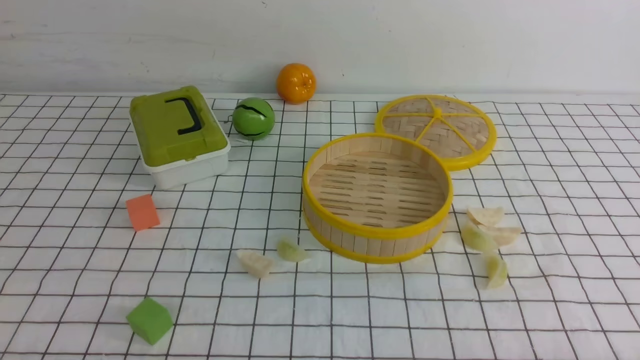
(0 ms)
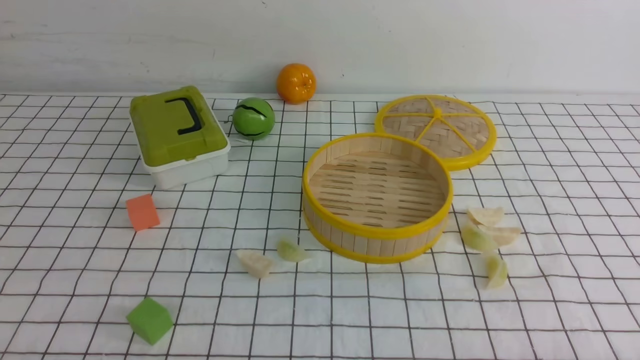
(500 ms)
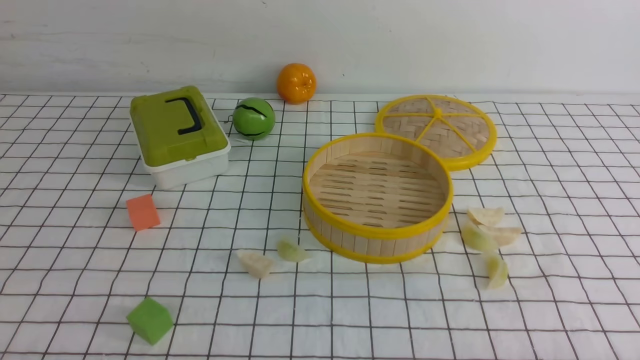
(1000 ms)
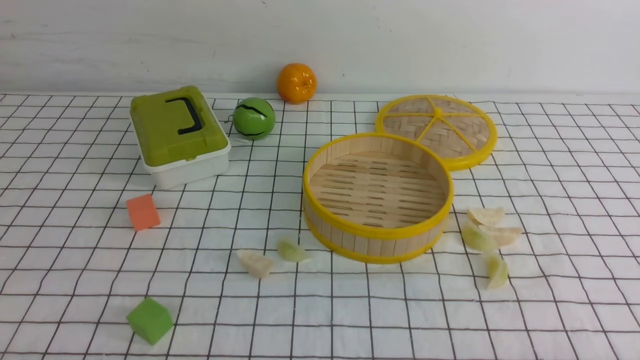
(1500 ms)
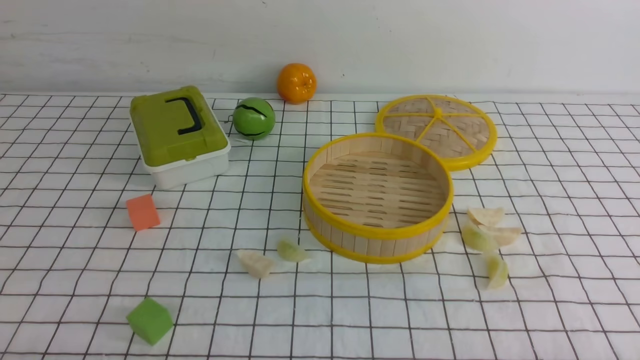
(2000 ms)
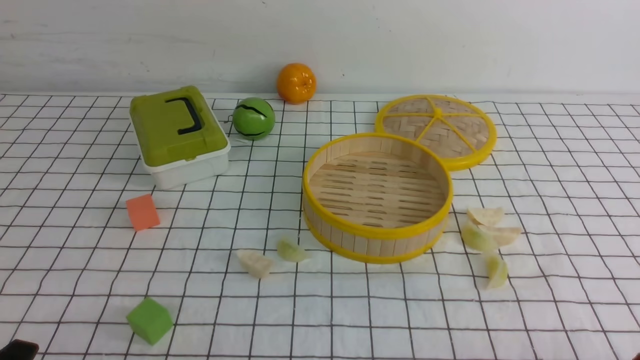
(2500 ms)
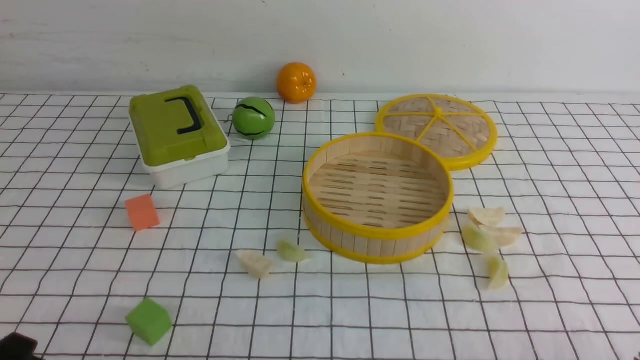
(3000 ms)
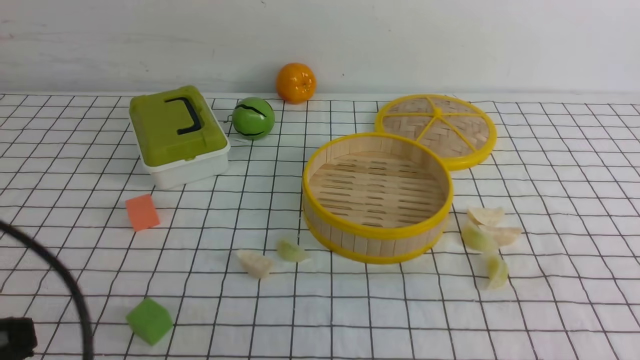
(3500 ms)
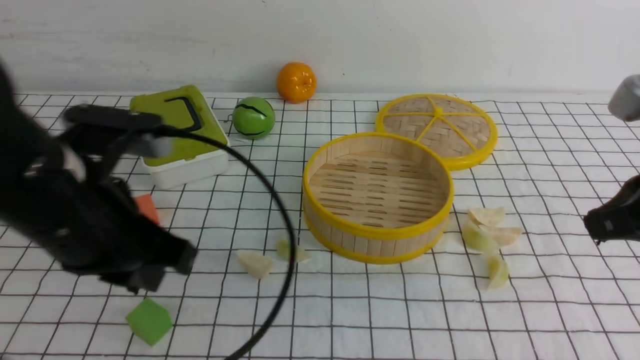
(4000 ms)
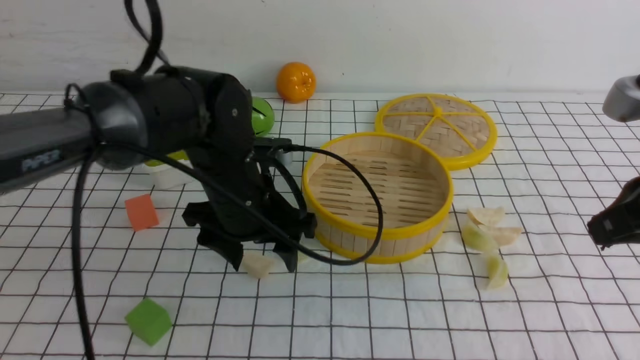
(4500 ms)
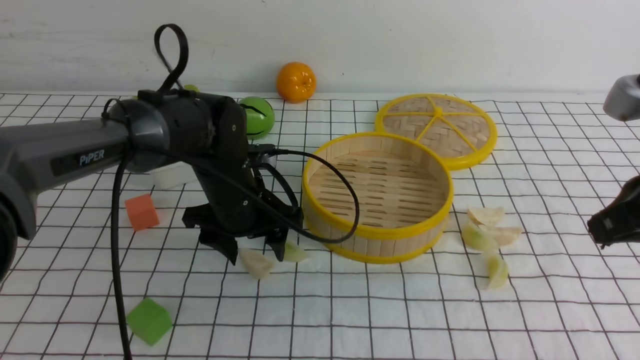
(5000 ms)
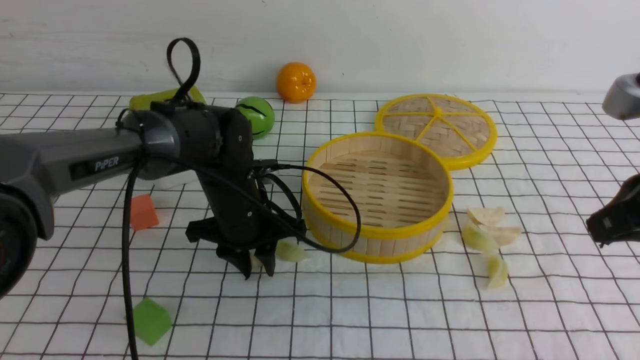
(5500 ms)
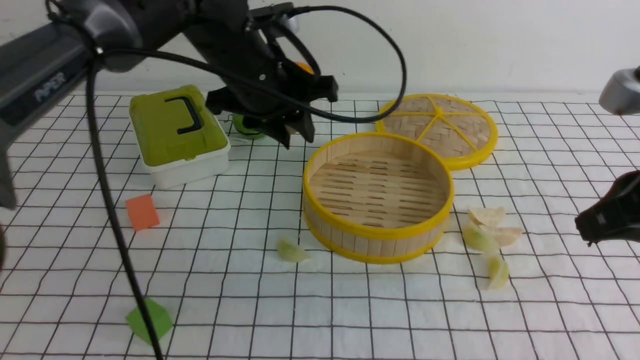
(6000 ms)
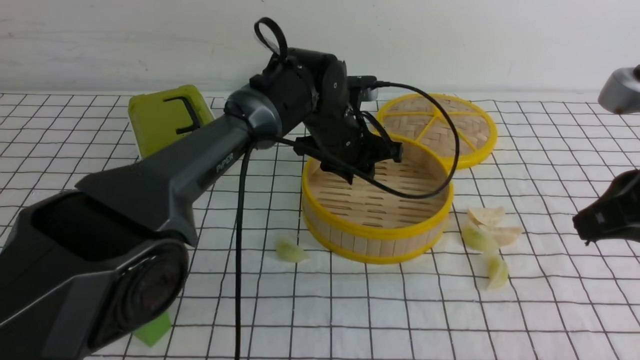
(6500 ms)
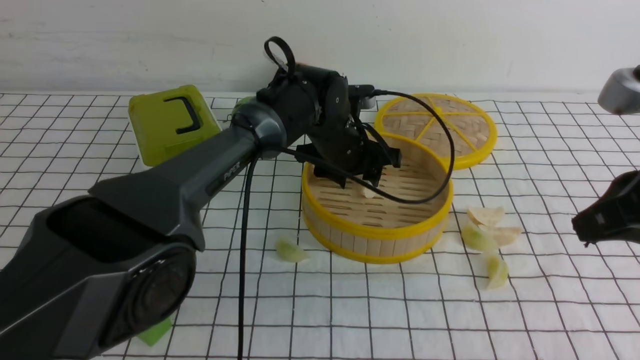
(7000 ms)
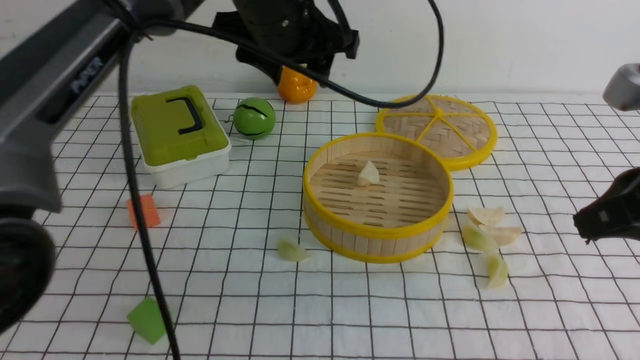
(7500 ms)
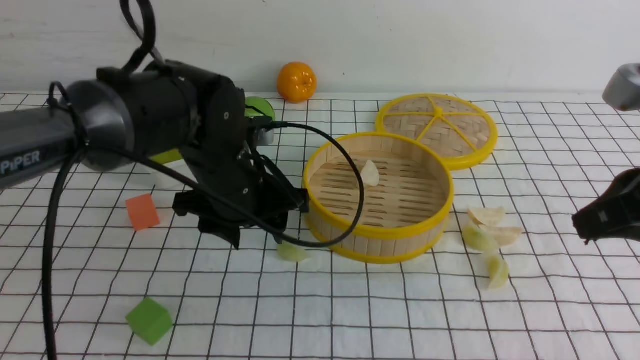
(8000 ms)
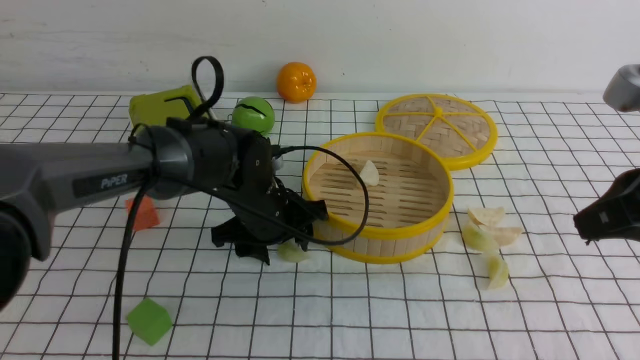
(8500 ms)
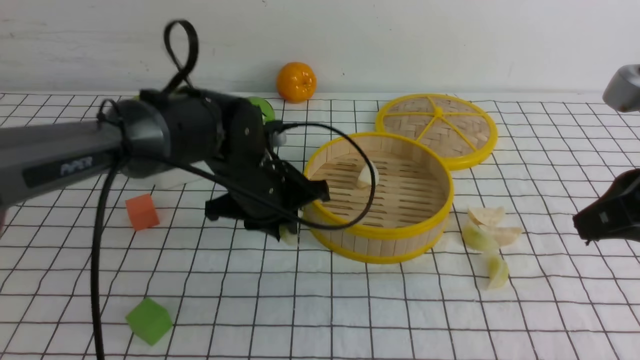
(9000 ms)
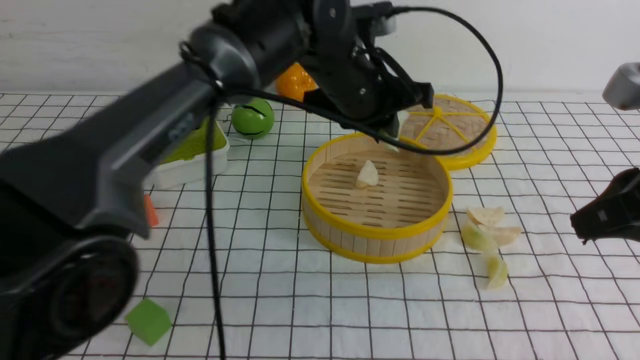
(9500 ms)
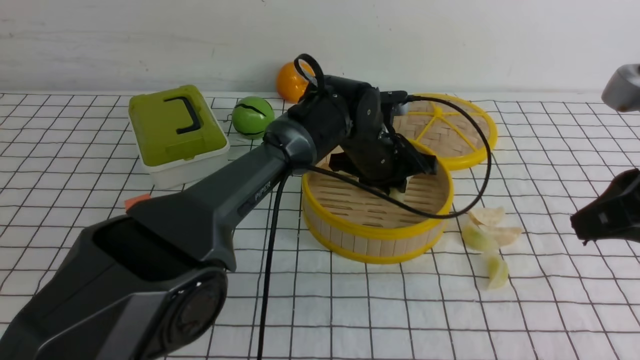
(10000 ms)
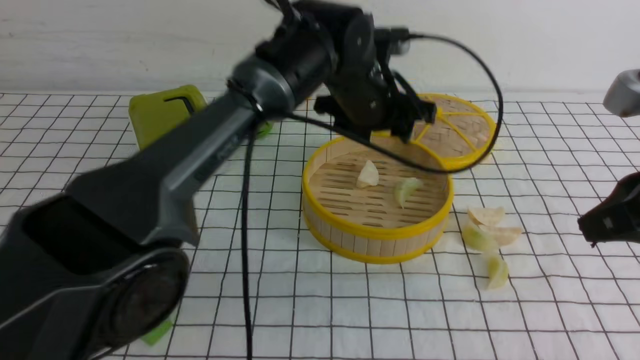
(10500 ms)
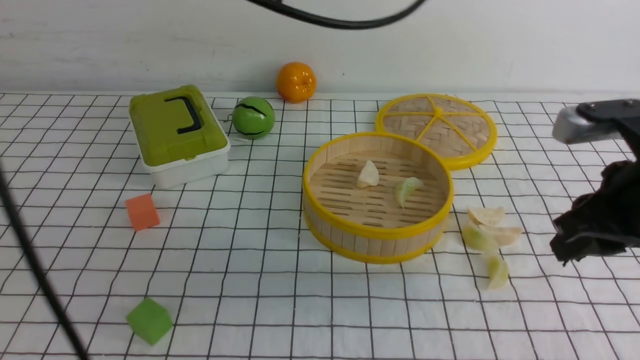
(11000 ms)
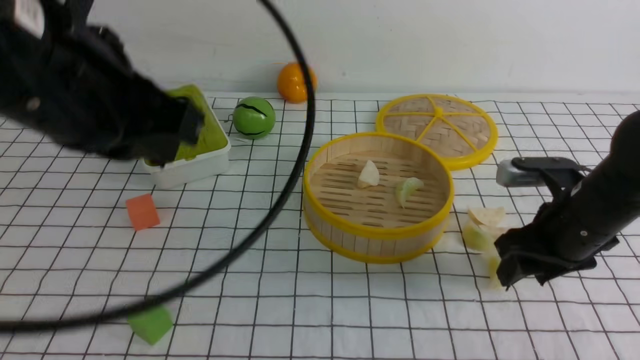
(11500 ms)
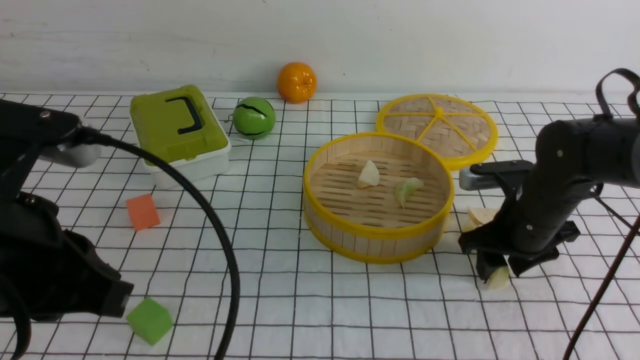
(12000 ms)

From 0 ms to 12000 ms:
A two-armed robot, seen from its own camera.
Task of the whole recording: put the dumplings into the steamer on the table with the white tablecloth.
Step, from 0 ms to 5500 ms: use the left arm to grab a dumpling.
Step, from 6000 ms to 6500 ms: use the left arm to put the dumpling into the steamer.
Step, from 7500 ms to 9000 ms: use the left arm to grab a dumpling.
Step, from 9500 ms to 10500 ms: use the left arm to put the dumpling into the steamer.
From 2000 ms to 4000 ms: The right gripper is displaced upward and forward by roughly 25 cm, and closes, while the left gripper travels forward, upward and to the right by approximately 25 cm, and closes, then opens again.
From 4000 ms to 6000 ms: The left gripper goes roughly 20 cm forward and to the right, and opens and closes again.
From 6000 ms to 8000 ms: The left gripper moves up and down over roughly 15 cm, changing direction 2 times, and opens its fingers.
From 8000 ms to 10000 ms: The left gripper heads to the right and forward, covering roughly 15 cm, and closes its fingers.
From 10000 ms to 12000 ms: The left gripper heads backward, to the left and upward, covering some 40 cm, and closes up, while the right gripper moves downward and forward, some 25 cm, and opens up.

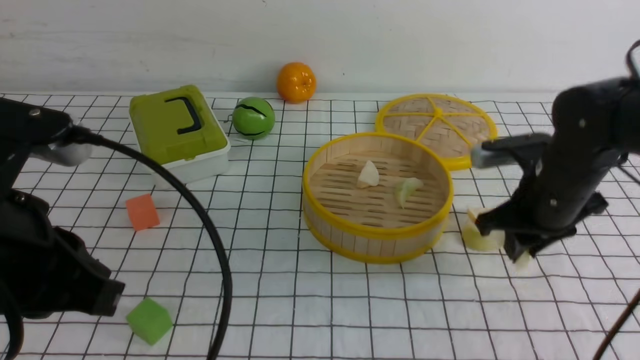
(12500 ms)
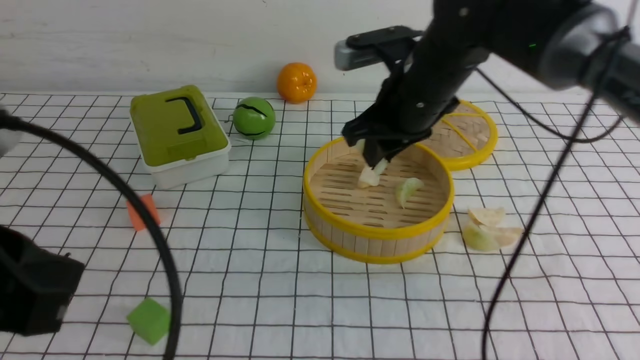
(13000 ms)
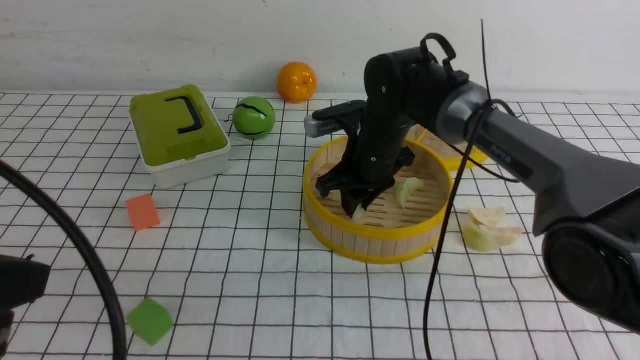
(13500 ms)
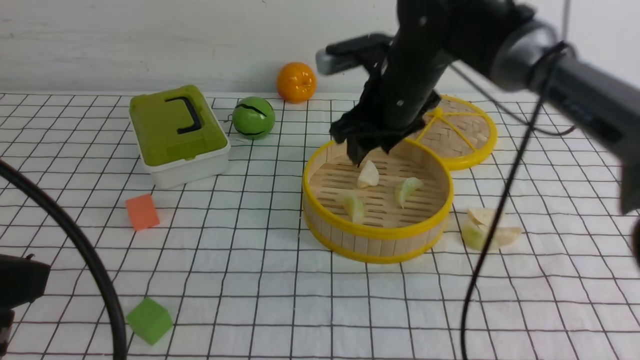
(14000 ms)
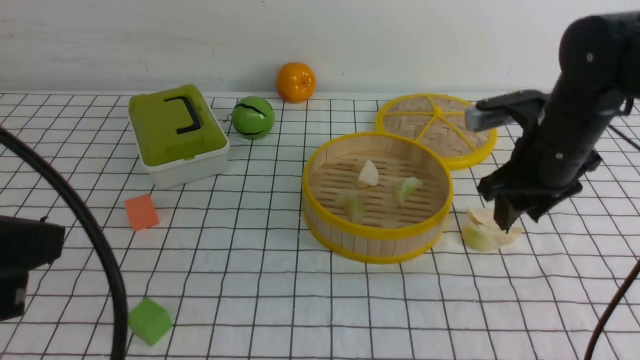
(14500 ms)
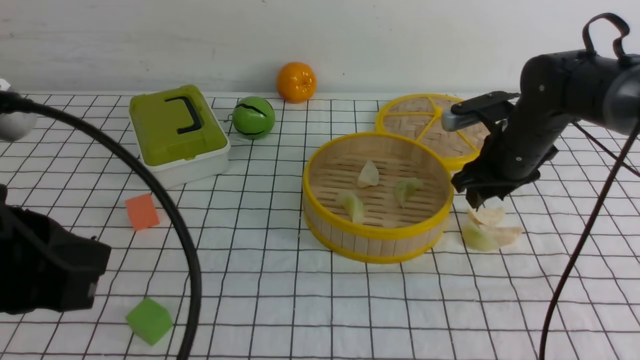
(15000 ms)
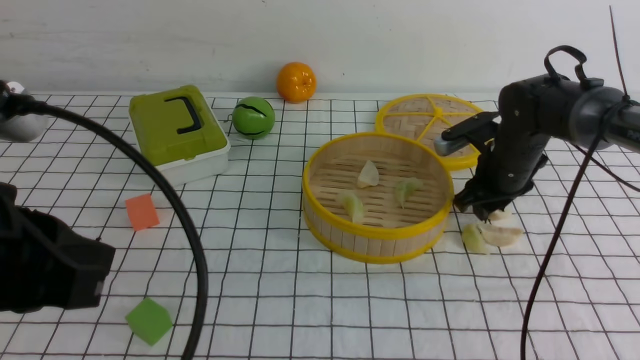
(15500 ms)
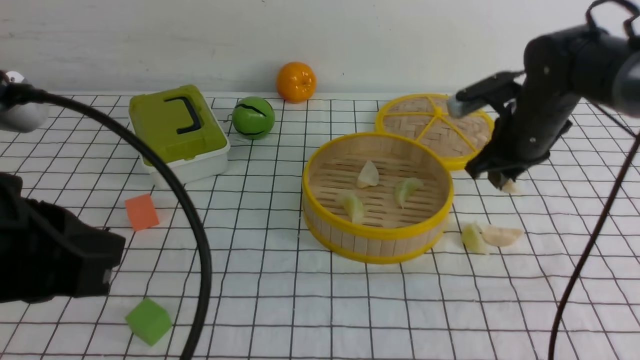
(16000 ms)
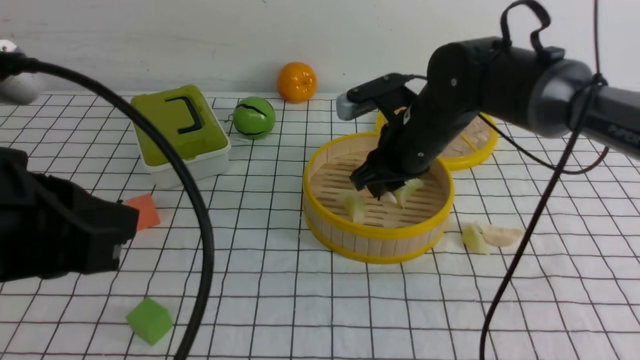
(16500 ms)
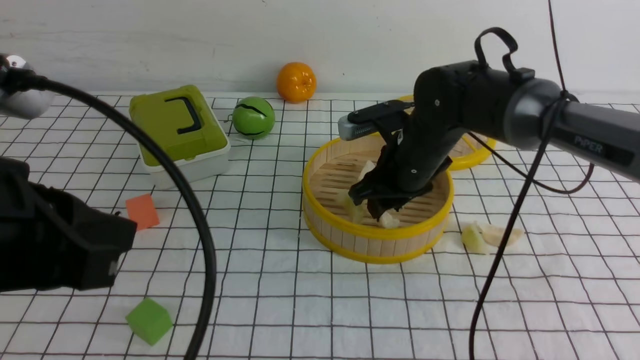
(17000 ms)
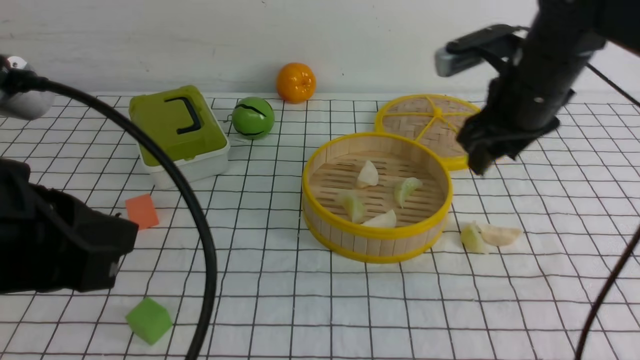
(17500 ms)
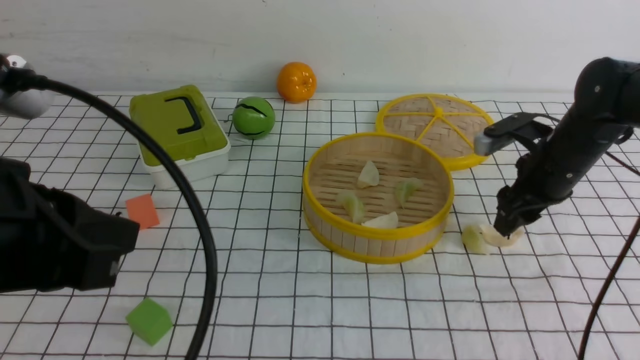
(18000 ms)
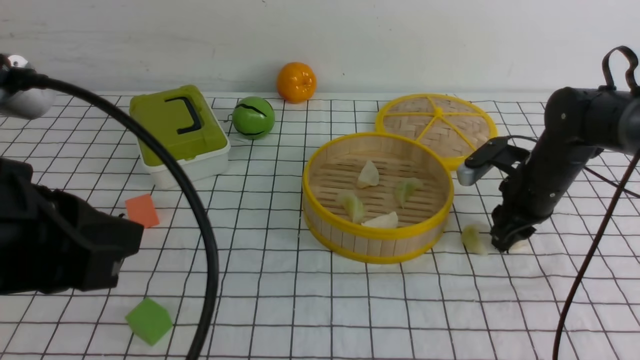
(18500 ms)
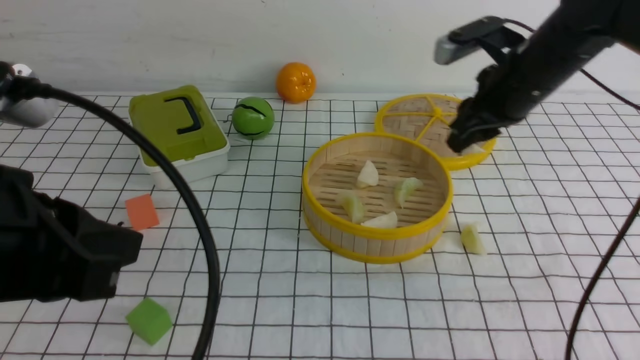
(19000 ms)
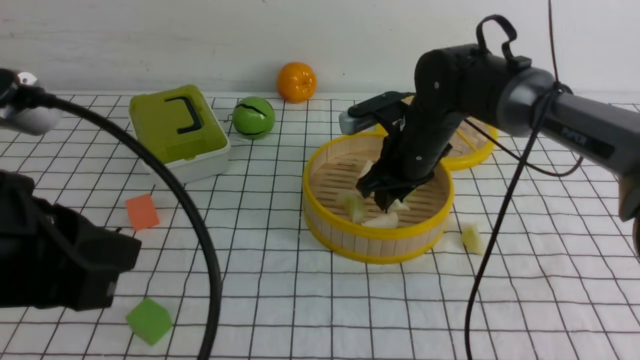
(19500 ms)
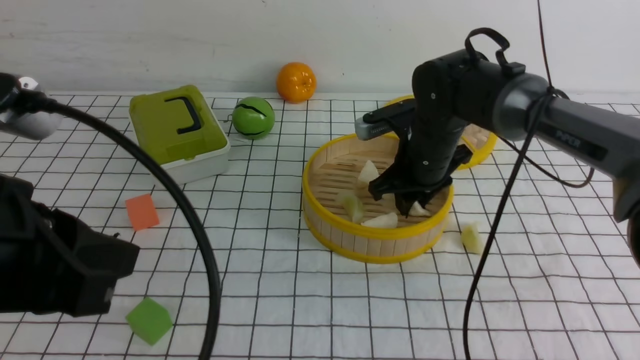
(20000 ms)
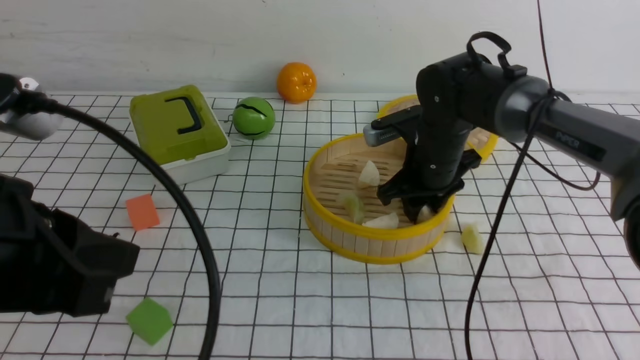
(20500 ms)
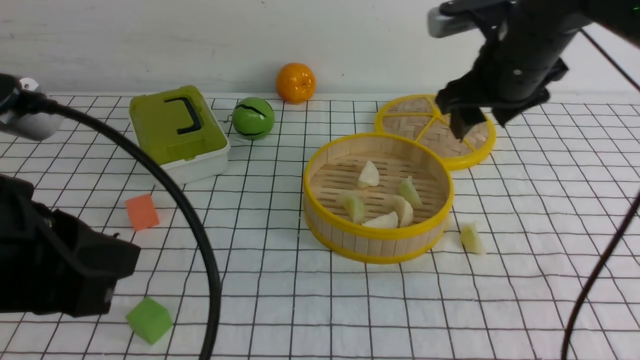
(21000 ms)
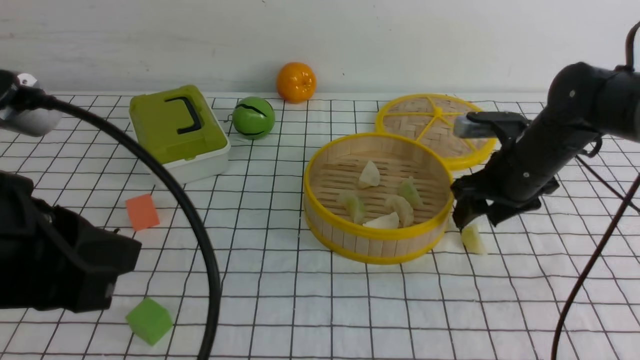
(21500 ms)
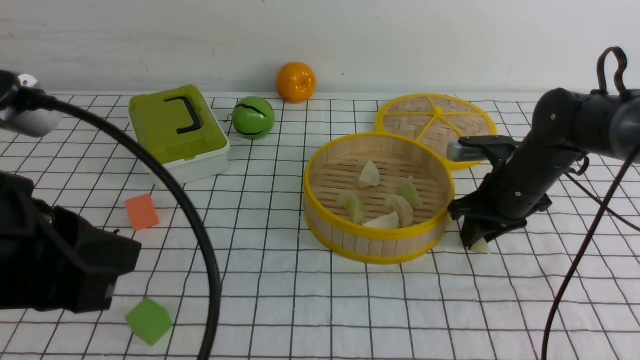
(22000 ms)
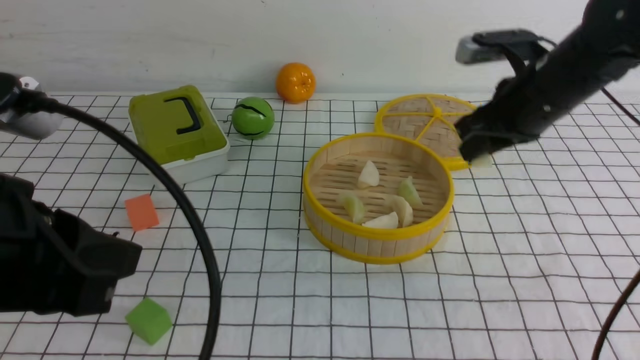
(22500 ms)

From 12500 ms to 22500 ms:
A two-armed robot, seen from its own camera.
Task of the whole recording: put the dumplings into the steamer on the table with the white tablecloth.
Step, from 13000 ms to 14000 ms: use the right arm to put the dumpling into the steamer.
Step, from 14500 ms to 15500 ms: use the right arm to grab a dumpling.
Step, from 16000 ms to 17000 ms: use the right arm to put the dumpling into the steamer.
Step, from 17500 ms to 19000 ms: use the right arm to grab a dumpling.
Step, from 19500 ms to 20500 ms: use the right arm to put the dumpling into the steamer.
Step, from 21000 ms to 22000 ms: use the right arm to grab a dumpling.
From 12500 ms to 14500 ms: The left gripper changes place by roughly 5 cm. The right gripper goes to the left and returns, approximately 15 cm each way, and opens its fingers.
From 14500 ms to 16500 ms: The right gripper goes about 10 cm to the left, and closes its fingers.
From 16500 ms to 18500 ms: The right gripper heads to the right and downward, covering approximately 15 cm.
From 18500 ms to 20500 ms: The right gripper goes about 15 cm to the left.
From 20500 ms to 22500 ms: The right gripper moves up and down over roughly 15 cm, changing direction 2 times, and closes up.
